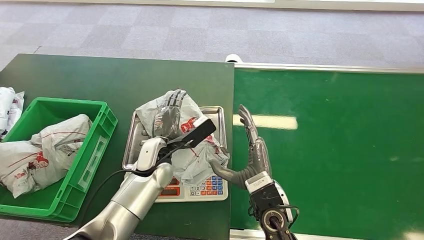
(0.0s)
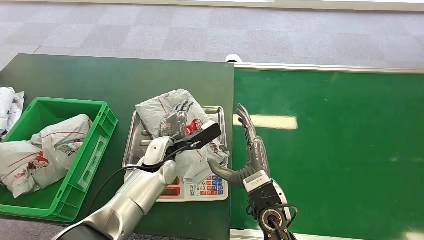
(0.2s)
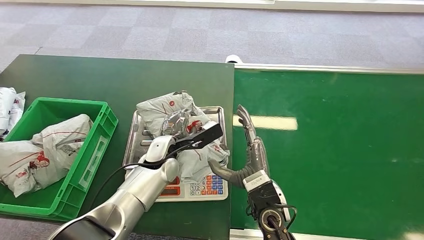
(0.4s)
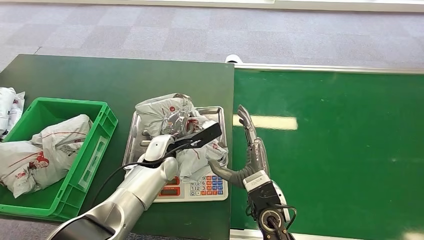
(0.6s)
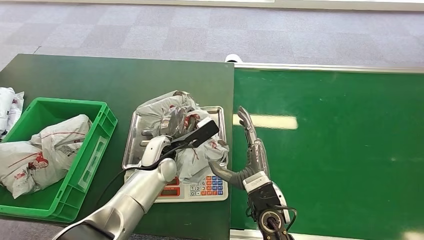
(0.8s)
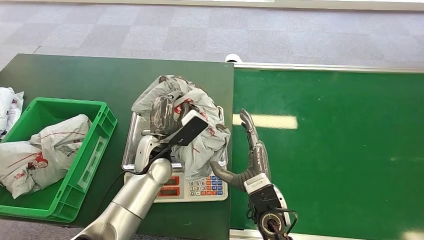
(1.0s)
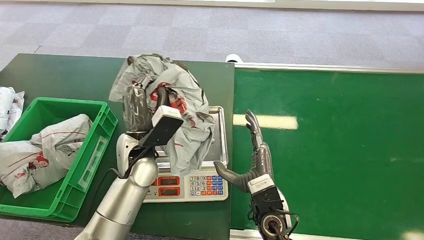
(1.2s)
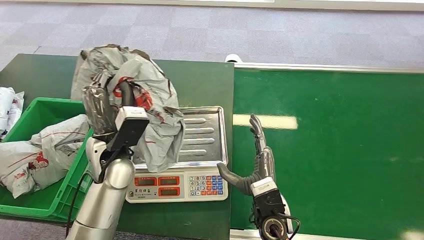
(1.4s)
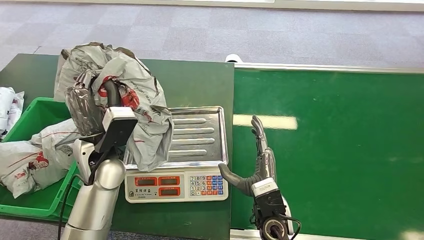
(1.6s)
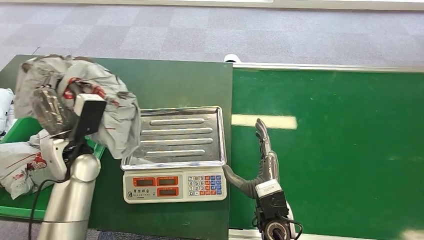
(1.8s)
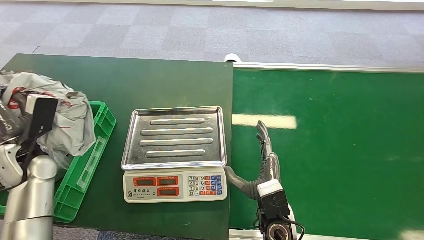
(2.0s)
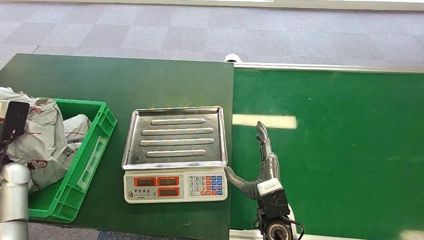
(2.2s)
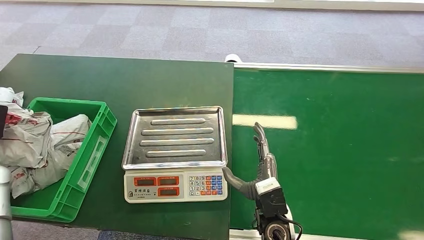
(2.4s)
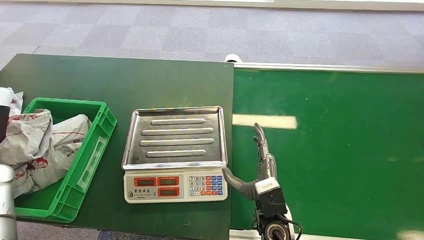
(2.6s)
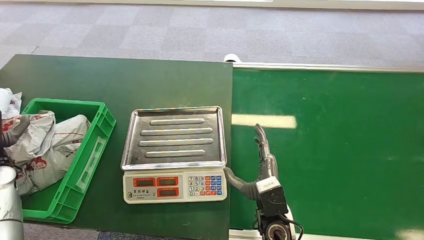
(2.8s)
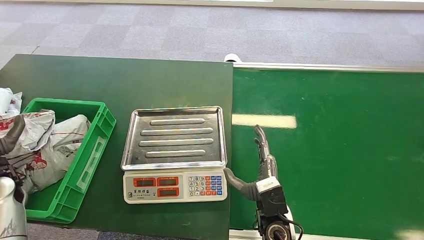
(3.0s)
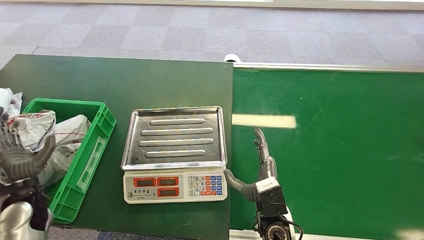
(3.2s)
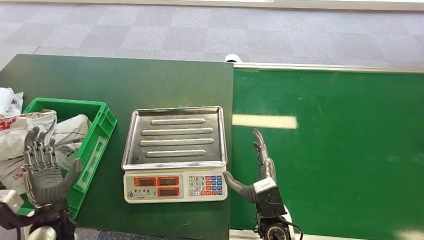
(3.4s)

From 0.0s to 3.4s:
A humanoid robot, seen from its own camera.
Step, from 0.0s to 1.6s: Pick up the package from the inbound machine.
Step, from 1.8s to 3.4s: Place the package into the parcel locker.
From 0.0s to 1.6s: The left hand travels to the left and upward by roughly 10 cm.
